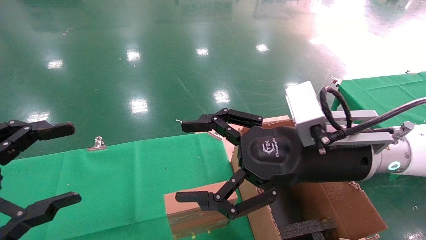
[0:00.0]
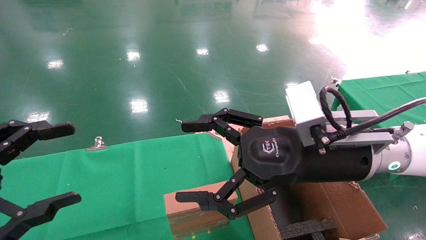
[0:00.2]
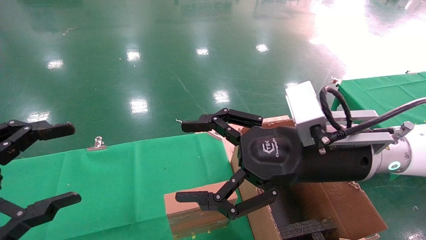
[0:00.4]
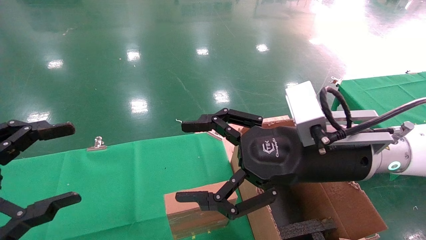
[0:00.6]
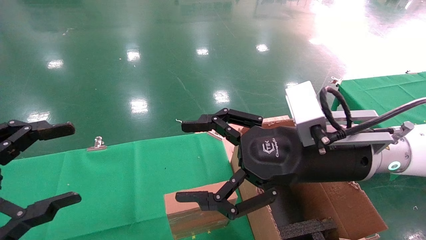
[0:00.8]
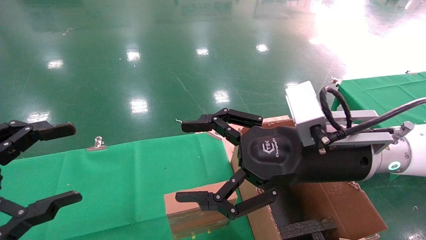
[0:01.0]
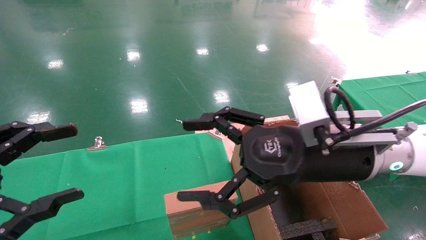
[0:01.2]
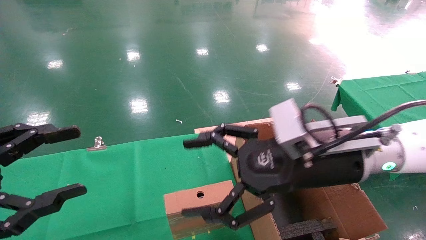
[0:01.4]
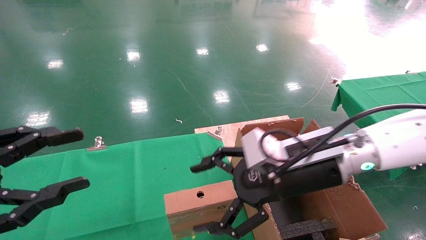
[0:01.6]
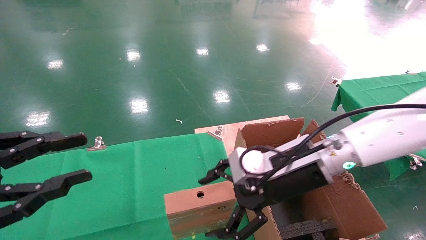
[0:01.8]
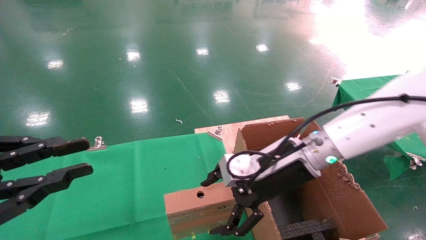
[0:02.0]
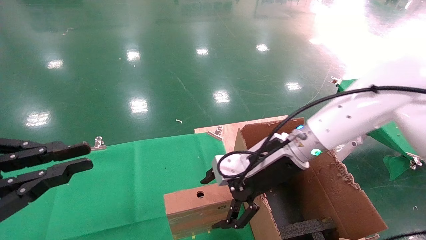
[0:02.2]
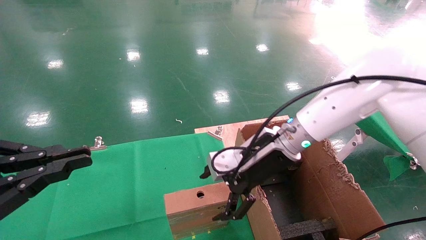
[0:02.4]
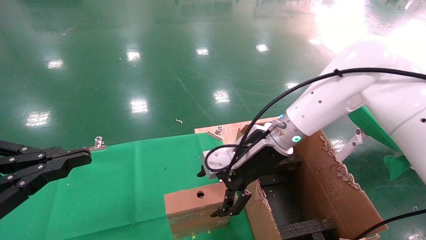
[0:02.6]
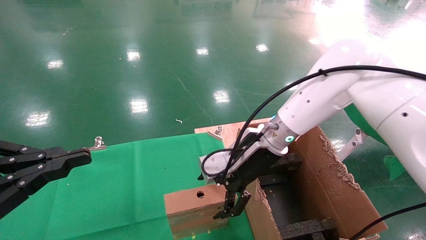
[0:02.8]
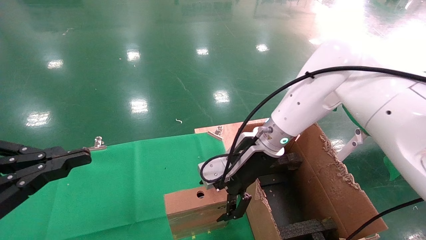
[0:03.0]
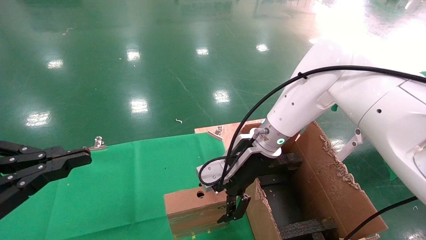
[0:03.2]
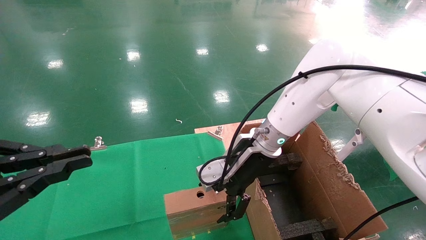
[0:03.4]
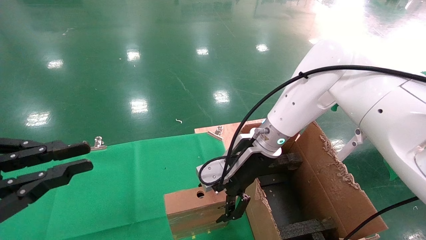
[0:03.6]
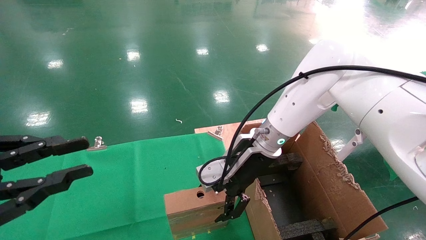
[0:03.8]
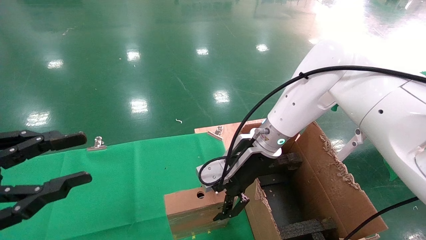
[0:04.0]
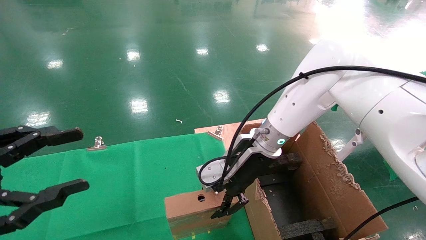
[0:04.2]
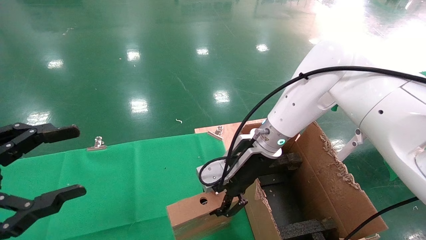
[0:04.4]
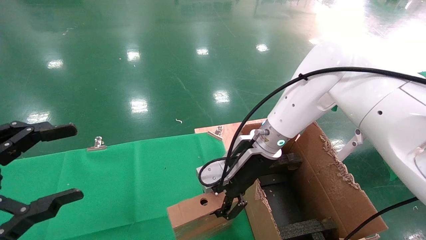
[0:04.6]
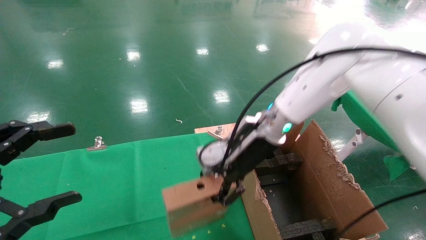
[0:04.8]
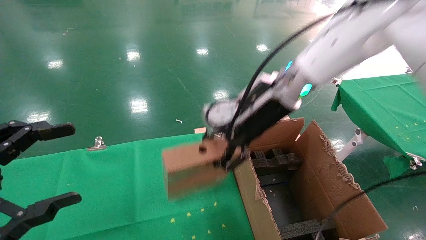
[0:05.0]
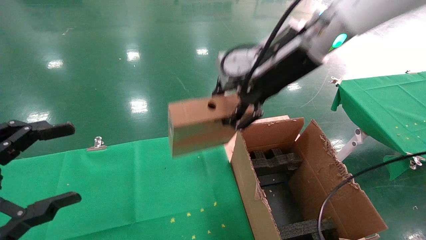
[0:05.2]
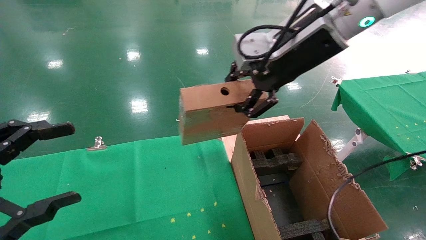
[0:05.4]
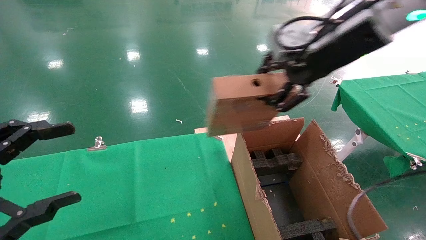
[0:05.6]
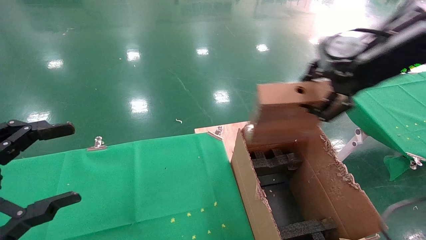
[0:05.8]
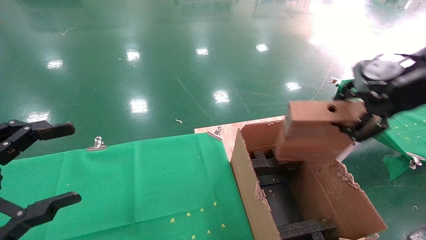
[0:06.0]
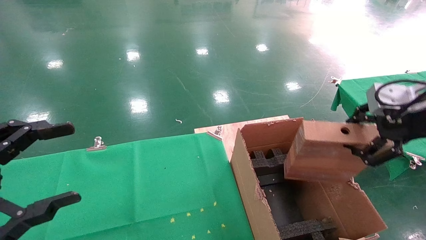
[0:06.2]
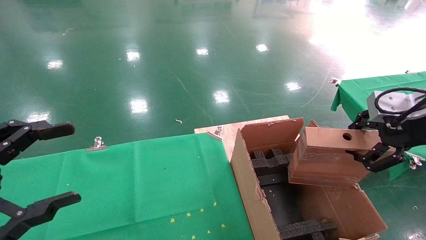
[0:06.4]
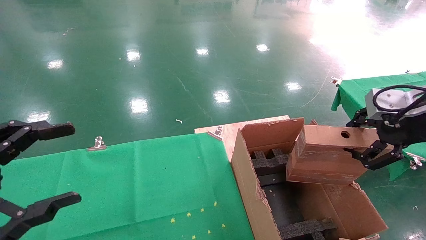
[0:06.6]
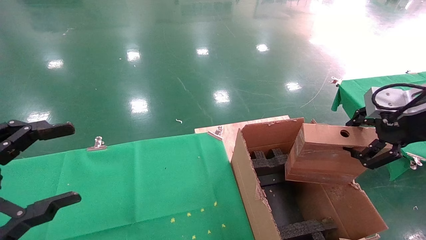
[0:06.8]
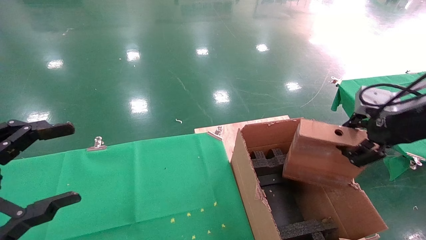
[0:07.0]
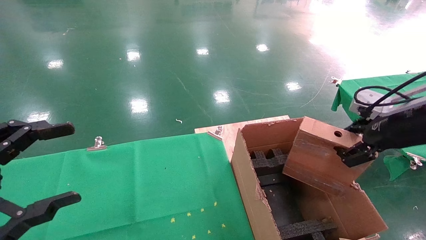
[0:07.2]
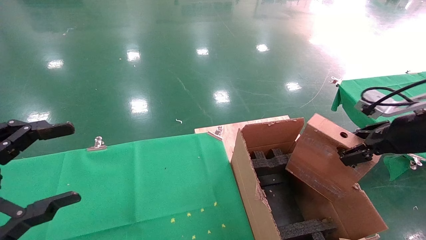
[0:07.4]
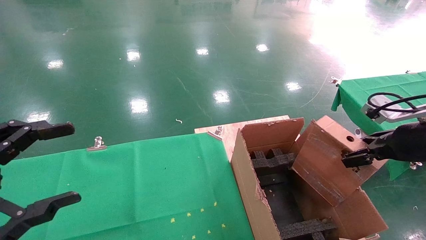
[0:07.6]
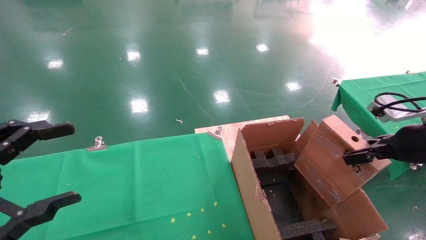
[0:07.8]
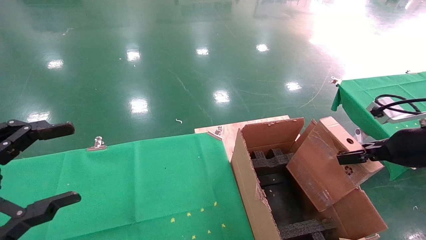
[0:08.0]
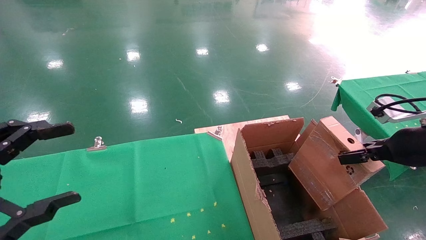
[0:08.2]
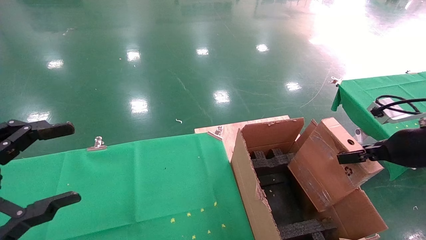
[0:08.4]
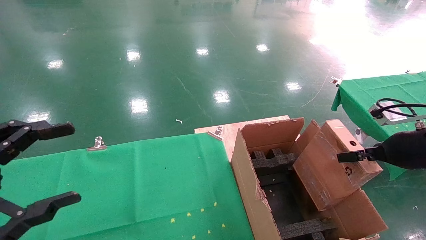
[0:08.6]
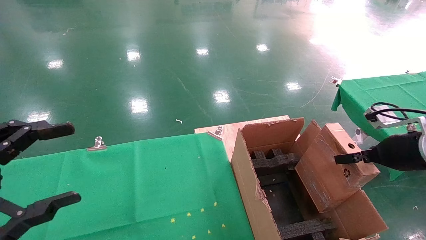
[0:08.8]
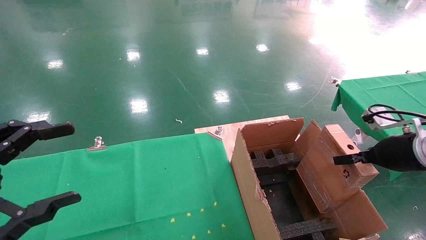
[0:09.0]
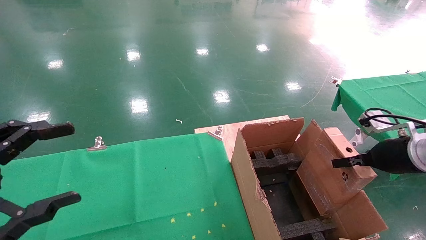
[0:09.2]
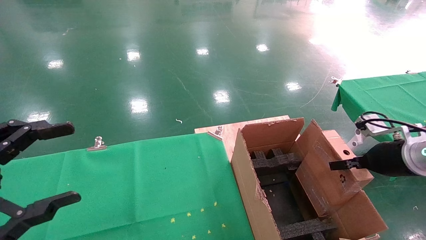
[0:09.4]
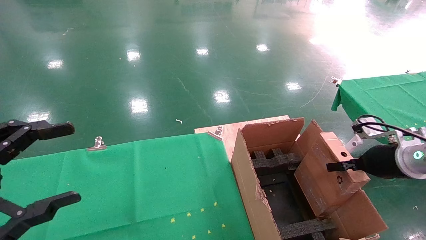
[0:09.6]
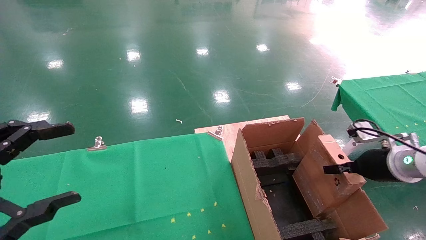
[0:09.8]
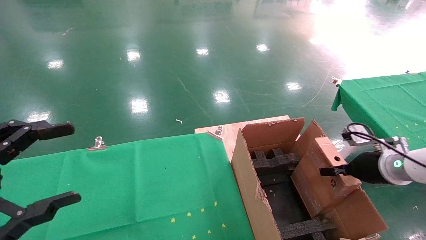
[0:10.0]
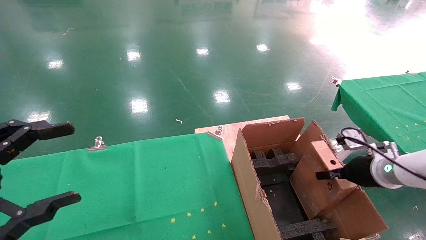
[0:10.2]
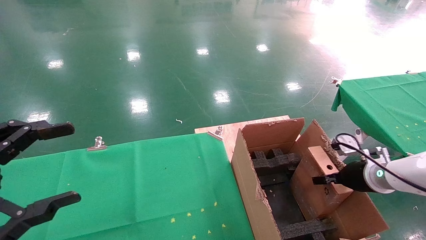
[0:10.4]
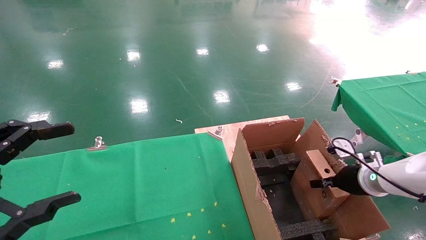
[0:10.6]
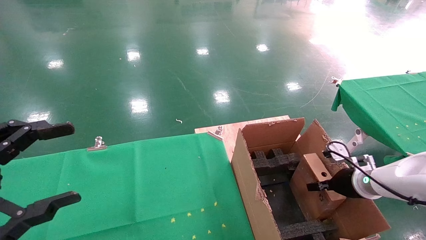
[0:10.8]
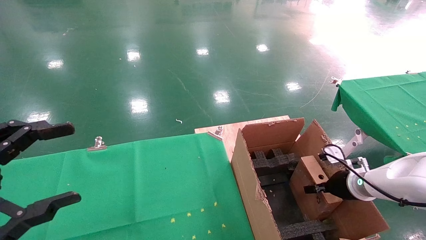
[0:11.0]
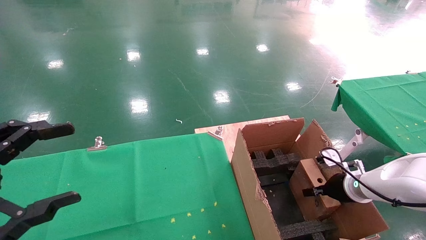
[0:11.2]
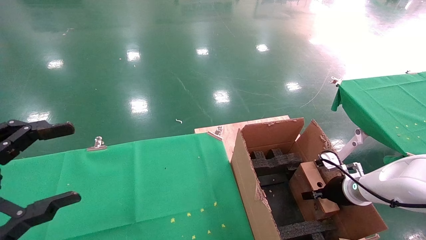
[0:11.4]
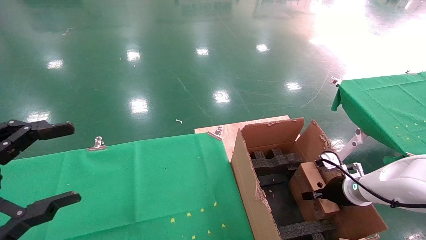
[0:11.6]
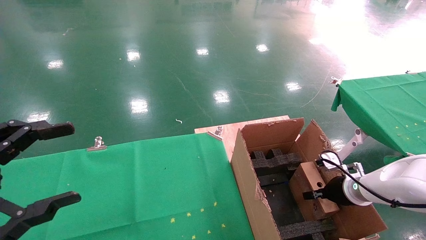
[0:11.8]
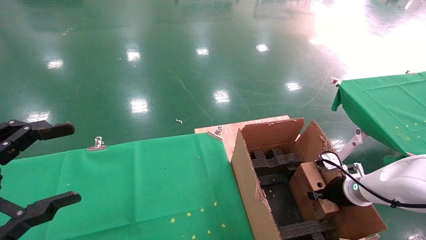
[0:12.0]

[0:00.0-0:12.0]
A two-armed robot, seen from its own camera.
Task of the whole recording: using a robotic arm to pick up a cardboard box and palace it the carton.
Step, 0:01.6 to 0:04.8: Pick up the mouse and the power cord paper box.
0:01.6 to 0:03.0: The left gripper closes its fingers. Meanwhile the right gripper moves forward, approximately 10 cm.
0:03.0 to 0:04.4: The left gripper opens, while the right gripper closes.
0:04.4 to 0:06.0: The right gripper travels to the right, upward and backward by roughly 30 cm.
0:06.0 to 0:07.6: The right gripper moves downward, some 10 cm.
0:07.6 to 0:09.0: The right gripper moves downward, roughly 5 cm.
0:09.0 to 0:10.4: The right gripper moves downward and forward, roughly 10 cm.
0:10.4 to 0:12.0: The right gripper is displaced downward by some 5 cm.

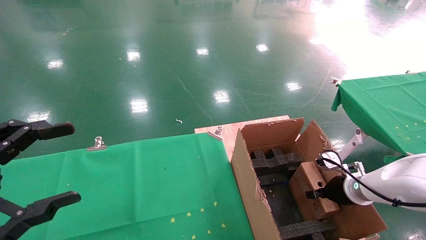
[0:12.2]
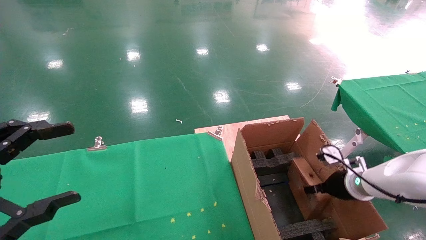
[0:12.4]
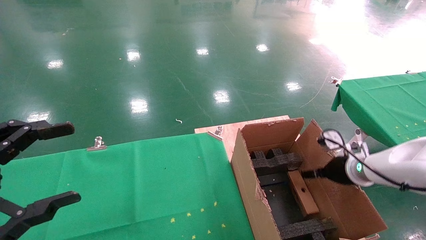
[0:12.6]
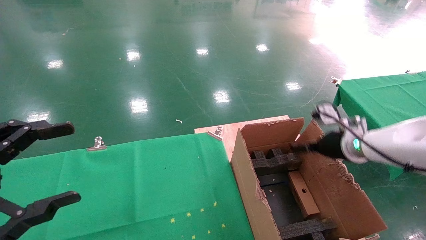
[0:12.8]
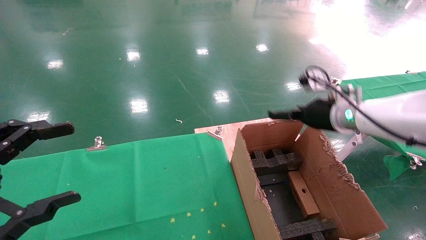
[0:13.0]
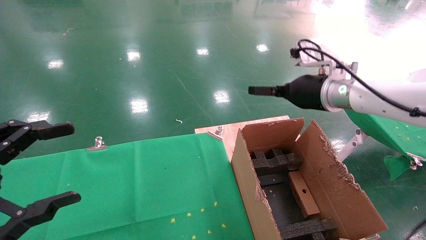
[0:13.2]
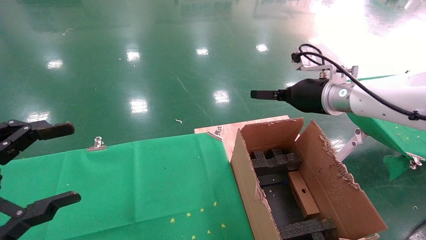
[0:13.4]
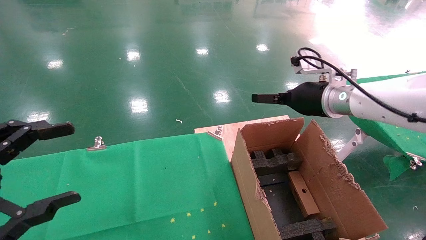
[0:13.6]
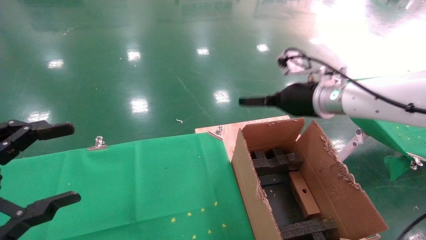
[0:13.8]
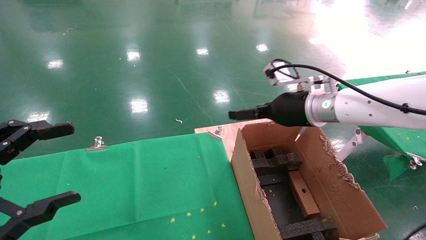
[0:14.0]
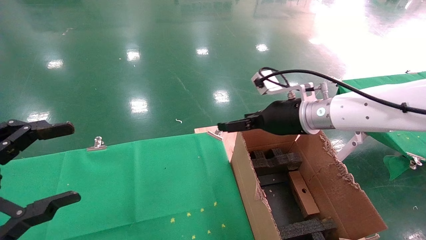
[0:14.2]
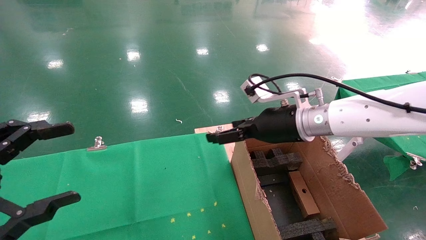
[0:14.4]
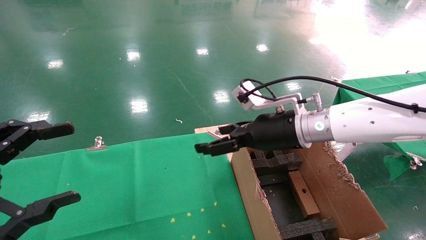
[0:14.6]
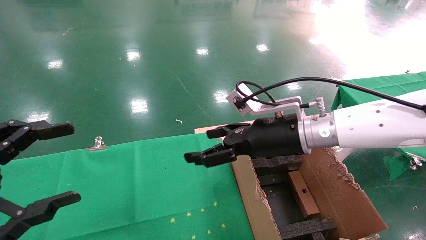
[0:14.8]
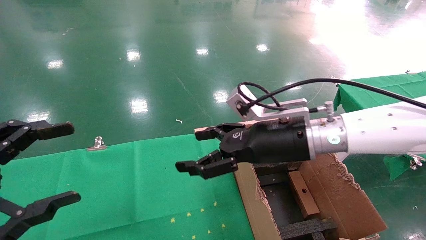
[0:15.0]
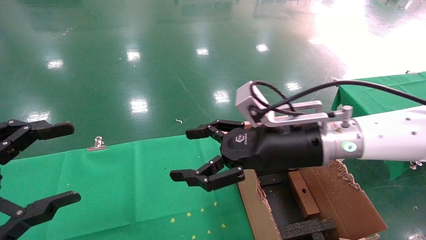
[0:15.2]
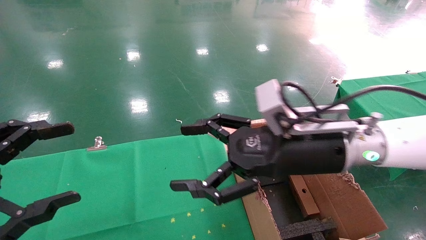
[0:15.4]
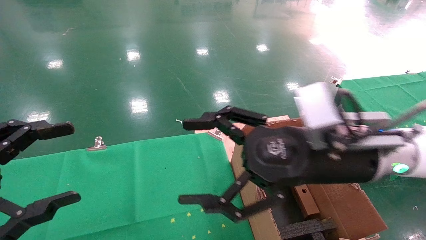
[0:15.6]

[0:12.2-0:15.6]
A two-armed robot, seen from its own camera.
Task of the whole recording: using a robotic arm to pick up a cardboard box and palace it the carton.
0:12.2 to 0:13.8: The right gripper moves upward and to the left, approximately 25 cm, and opens.
0:13.8 to 0:15.6: The right gripper shifts roughly 15 cm backward and to the left.
